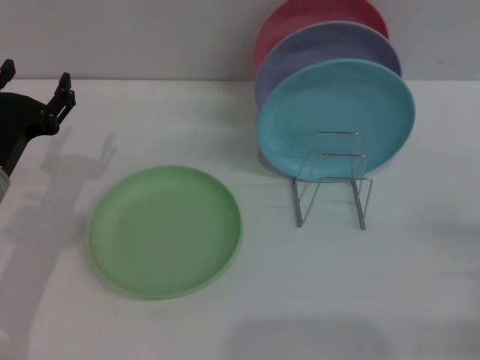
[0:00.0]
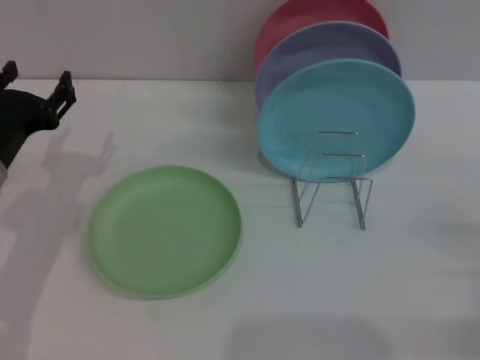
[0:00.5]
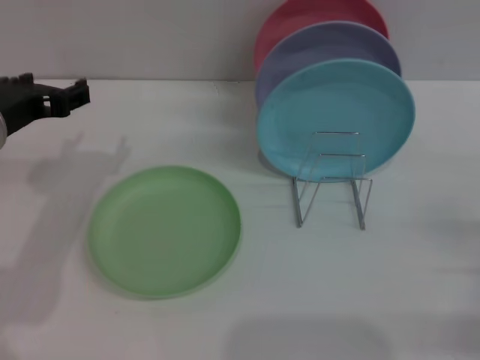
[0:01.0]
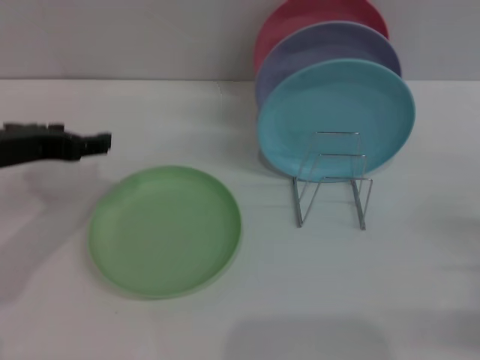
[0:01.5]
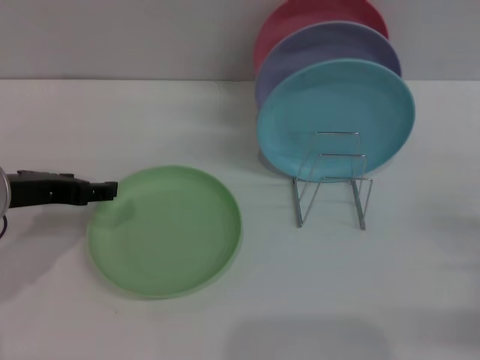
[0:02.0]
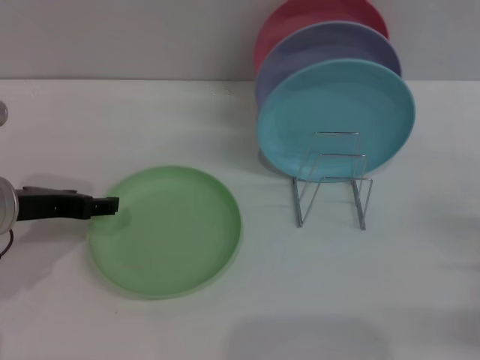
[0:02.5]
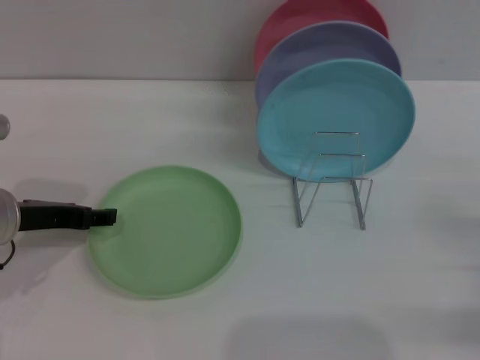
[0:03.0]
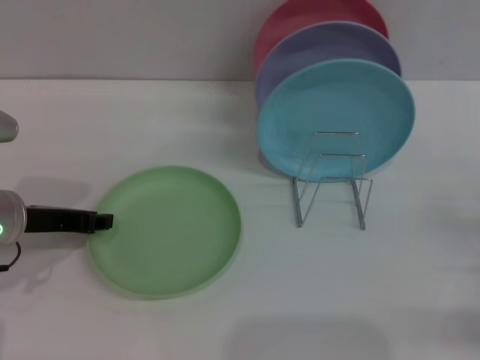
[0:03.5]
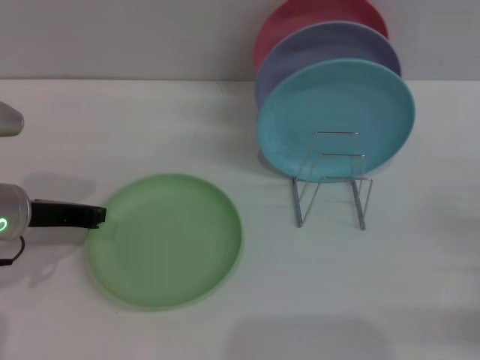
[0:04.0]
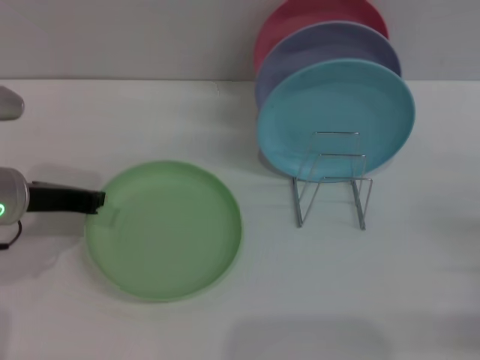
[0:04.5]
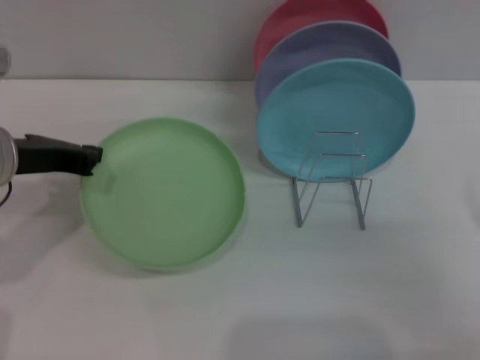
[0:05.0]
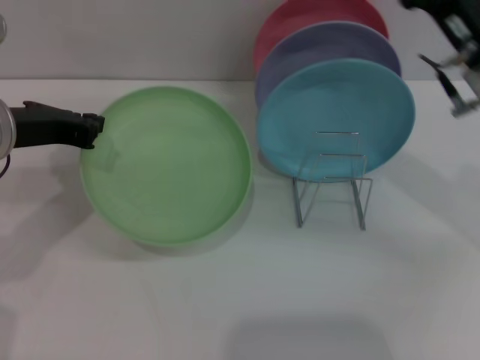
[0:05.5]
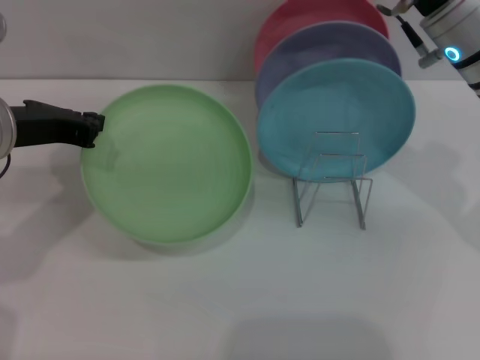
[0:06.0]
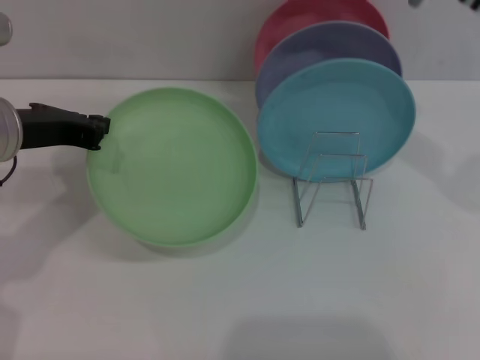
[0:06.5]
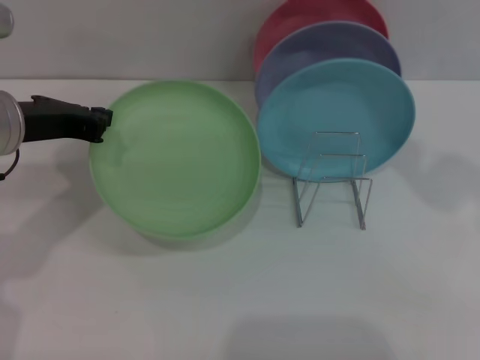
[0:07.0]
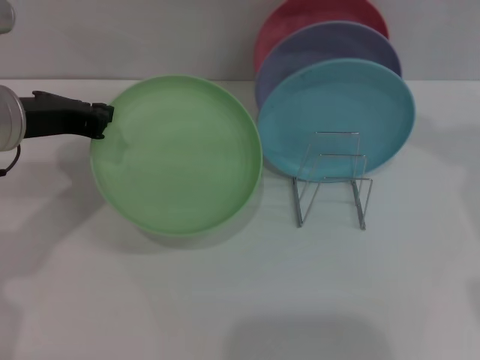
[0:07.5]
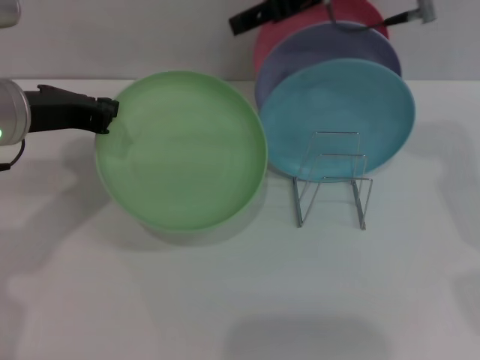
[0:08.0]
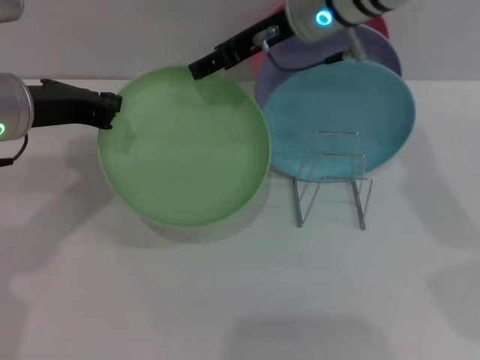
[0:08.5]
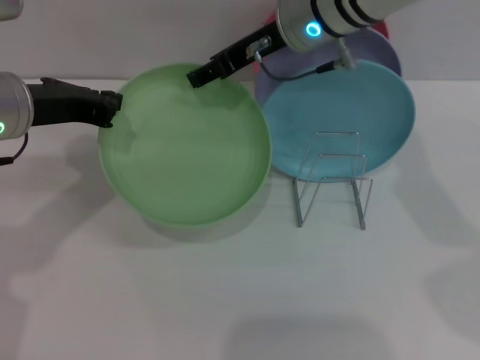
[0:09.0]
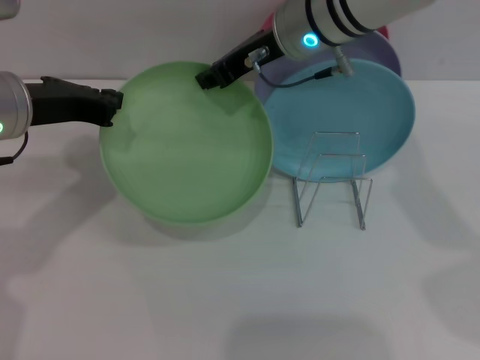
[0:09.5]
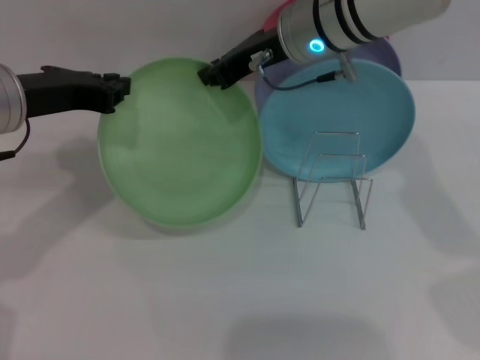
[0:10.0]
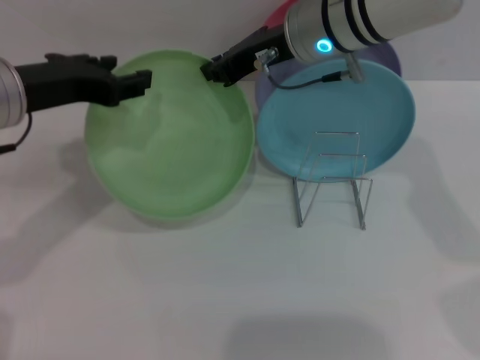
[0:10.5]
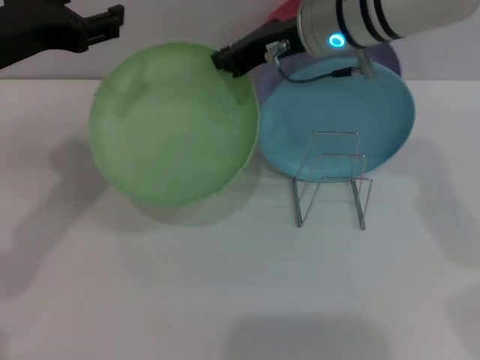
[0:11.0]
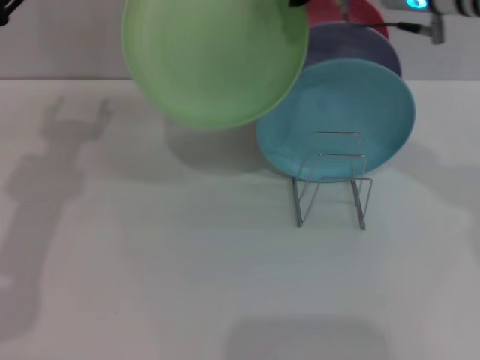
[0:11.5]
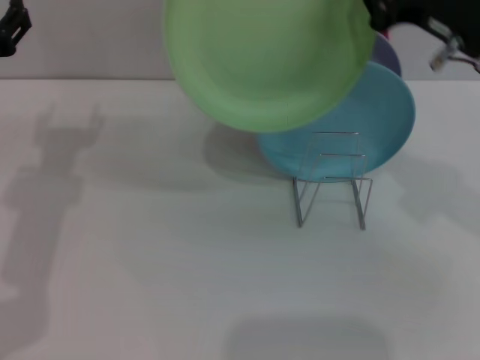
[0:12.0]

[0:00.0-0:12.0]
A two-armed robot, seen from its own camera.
Task of the whole recording: Grip the plate with one hand, pass it to the other, then set it on the shelf.
Step, 0:00.0 to 0:05.0: Pick up the plate with the left gripper.
Step, 0:05.5 to 0:10.5: Pass the plate from the left gripper to the right gripper.
0:00.0 to 0:02.0: The left gripper goes approximately 5 cm upward.
0:02.0 to 0:04.0: The left gripper closes.
0:04.0 to 0:06.0: The right gripper travels forward, upward and to the left by roughly 30 cm. The left gripper travels upward by approximately 10 cm.
0:06.0 to 0:08.0: The right gripper travels upward and to the left by approximately 10 cm.
0:08.0 to 0:10.0: The right gripper heads downward and to the left, covering some 10 cm, and closes.
0:10.0 to 0:12.0: The left gripper opens up, while the right gripper shifts approximately 20 cm to the right and backward.

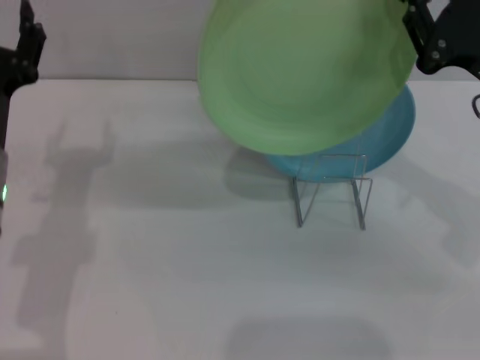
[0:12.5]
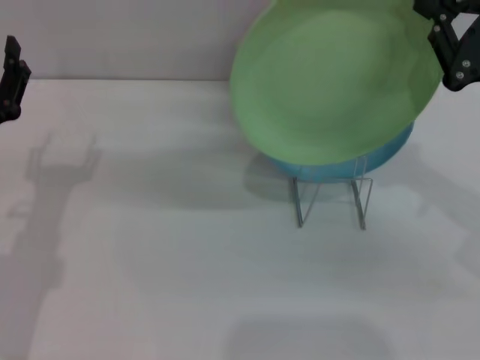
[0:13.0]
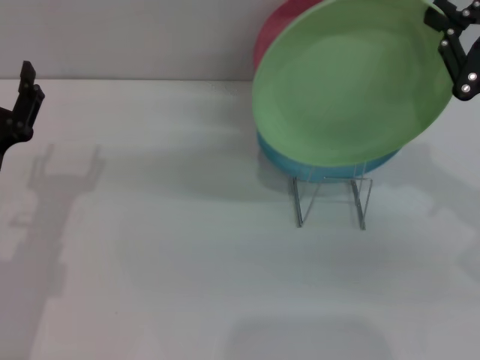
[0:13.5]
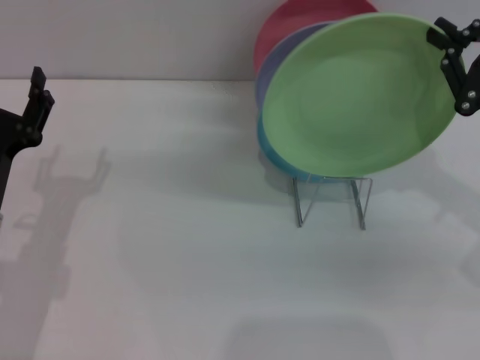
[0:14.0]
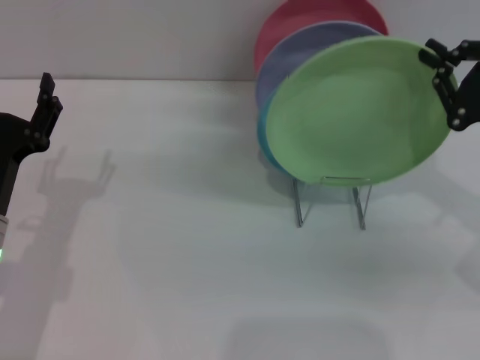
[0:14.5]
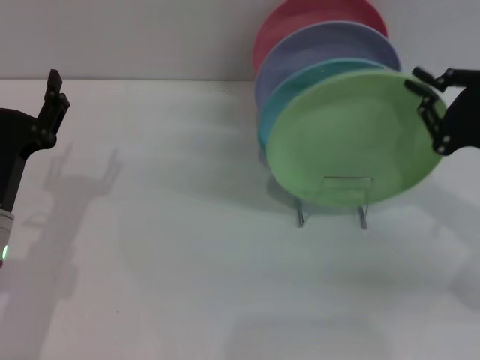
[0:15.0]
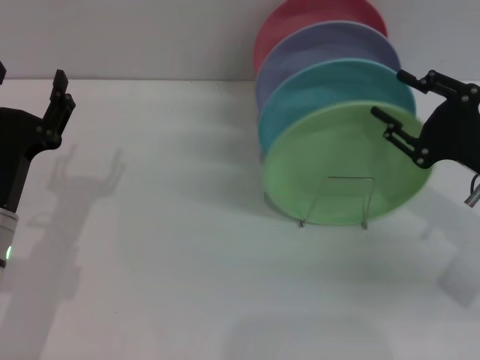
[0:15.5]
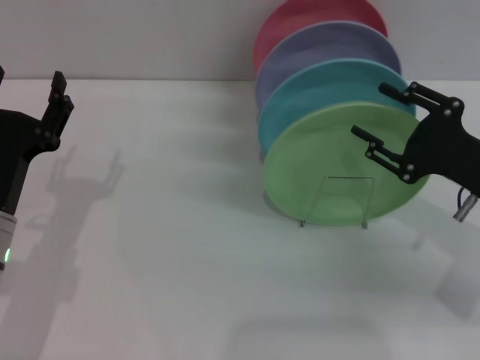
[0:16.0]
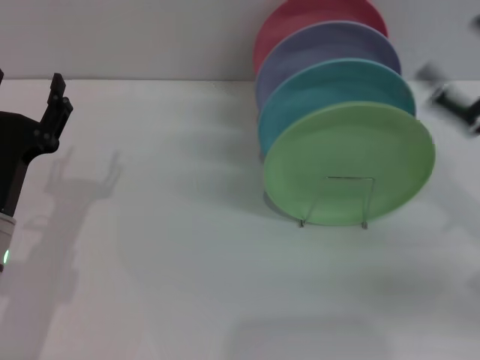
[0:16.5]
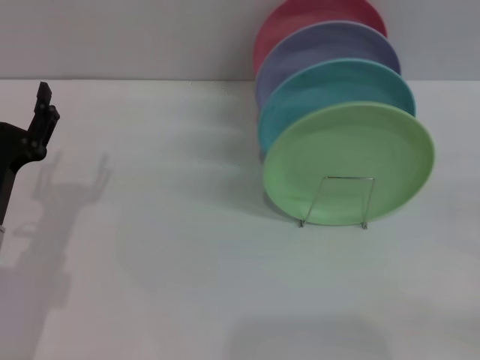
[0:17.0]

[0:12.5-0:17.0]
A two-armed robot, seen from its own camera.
Task of the whole recording: Grip the plate with one hand, pass it to the other, then set it on the shelf.
Step, 0:12.5 to 0:15.5: Place the plate on the shelf with the right gripper.
0:12.5 to 0:14.5: The left gripper shifts by approximately 5 cm; the right gripper changes place by roughly 5 cm.
0:14.5 to 0:17.0: The right gripper moves to the right, backward and downward, some 15 cm, and opens up.
